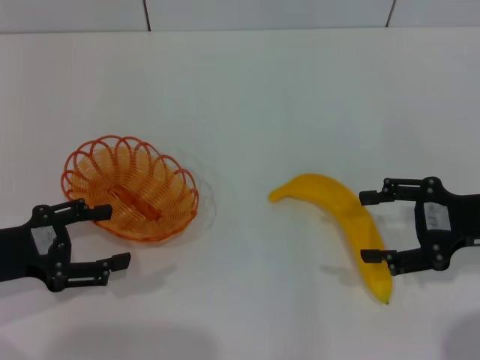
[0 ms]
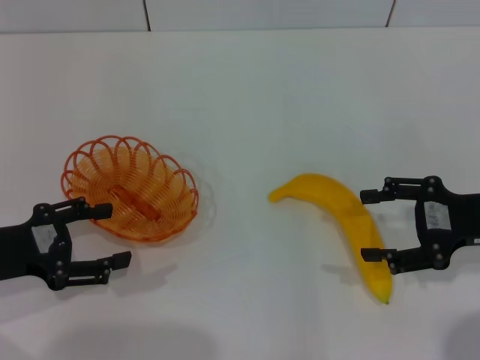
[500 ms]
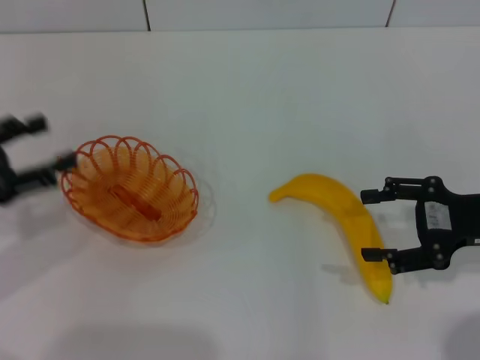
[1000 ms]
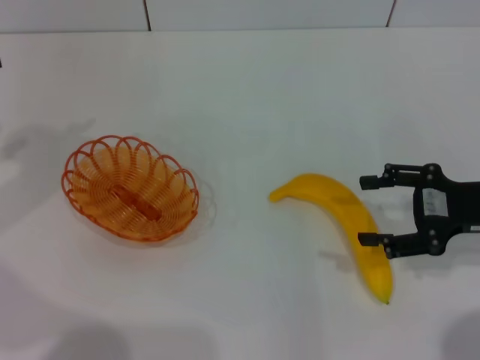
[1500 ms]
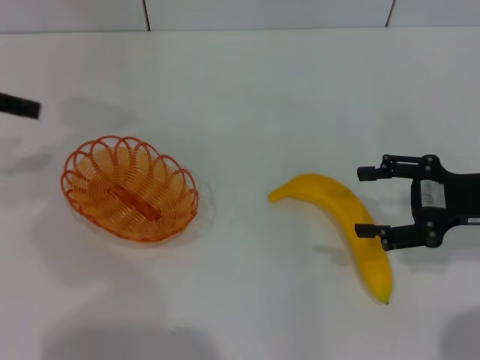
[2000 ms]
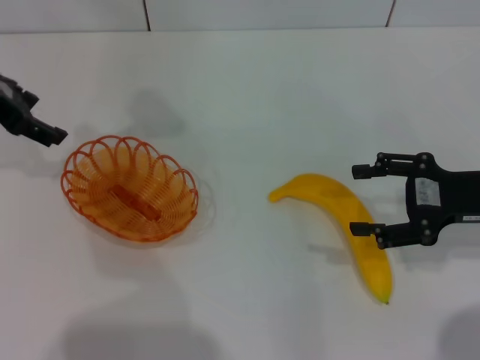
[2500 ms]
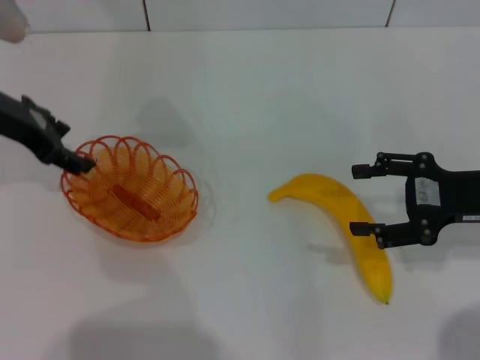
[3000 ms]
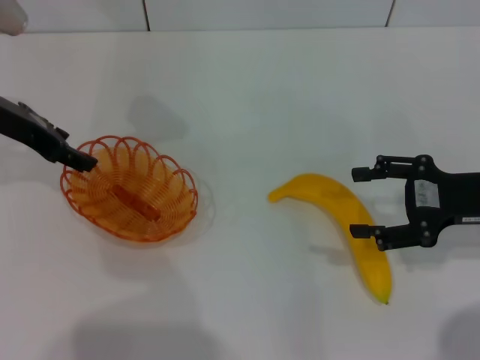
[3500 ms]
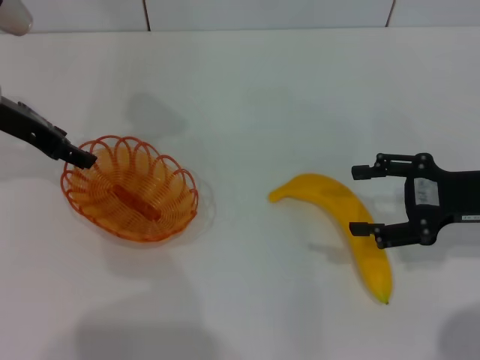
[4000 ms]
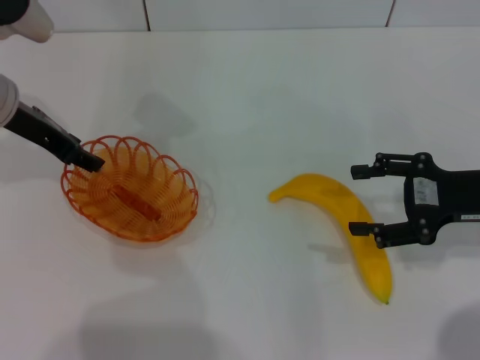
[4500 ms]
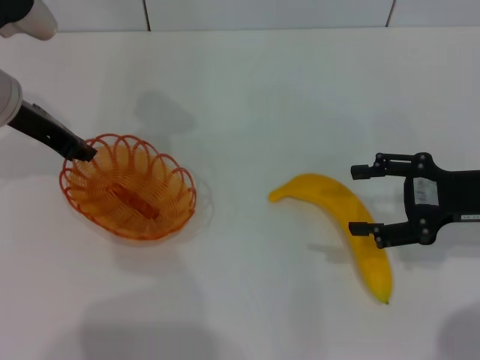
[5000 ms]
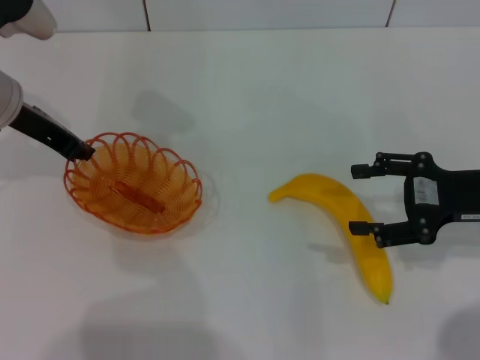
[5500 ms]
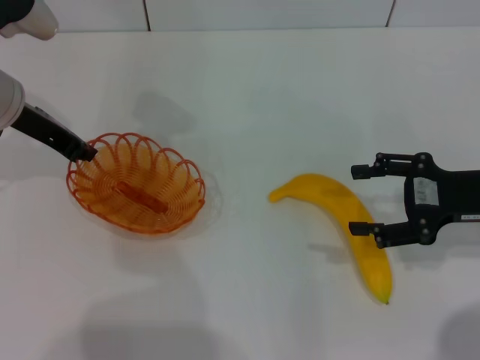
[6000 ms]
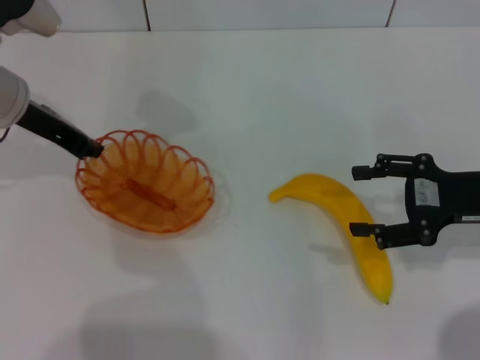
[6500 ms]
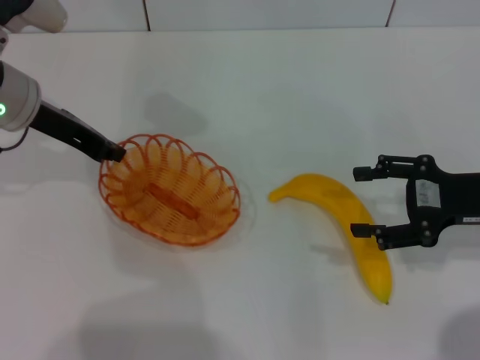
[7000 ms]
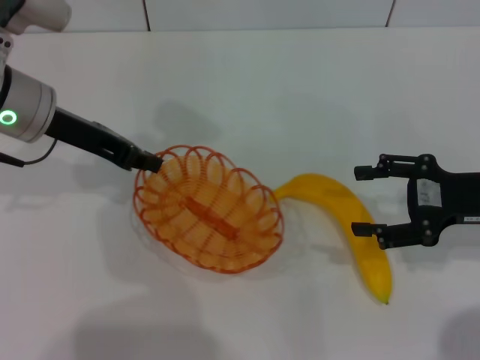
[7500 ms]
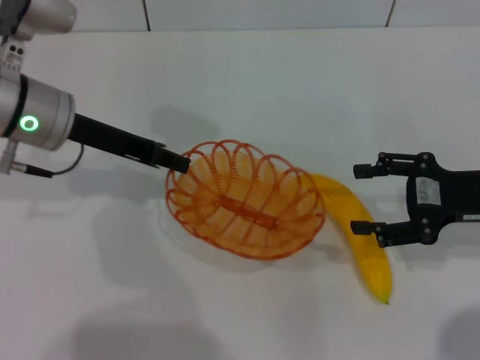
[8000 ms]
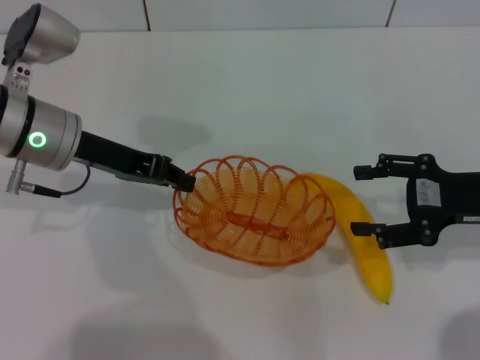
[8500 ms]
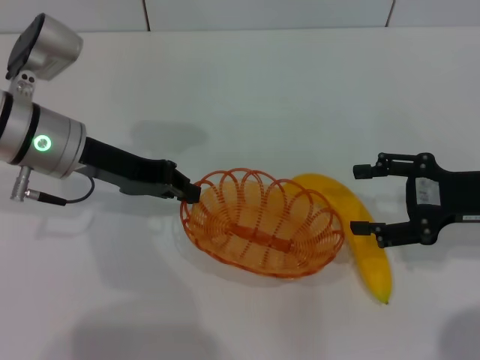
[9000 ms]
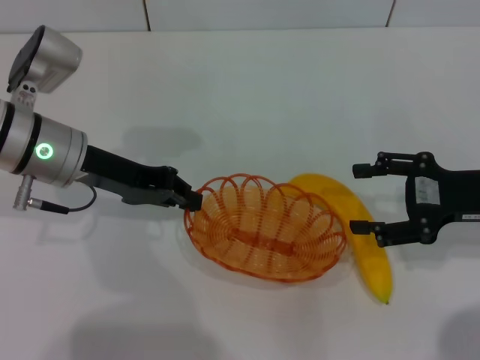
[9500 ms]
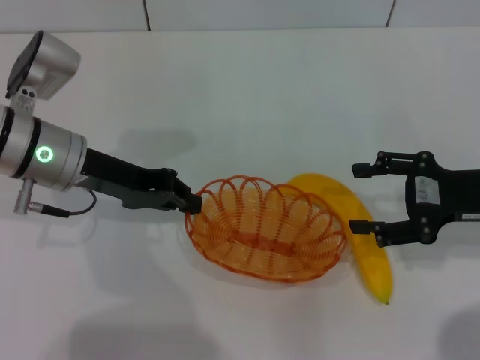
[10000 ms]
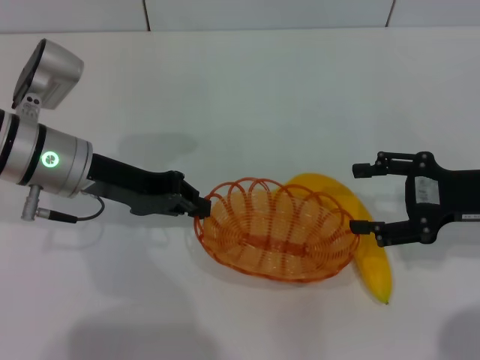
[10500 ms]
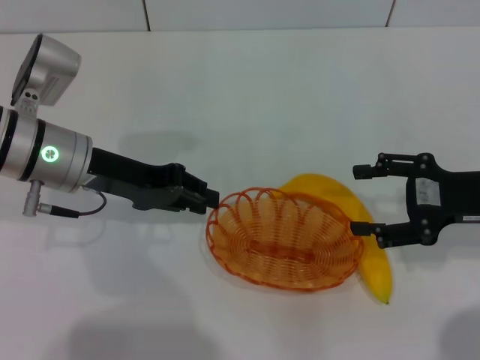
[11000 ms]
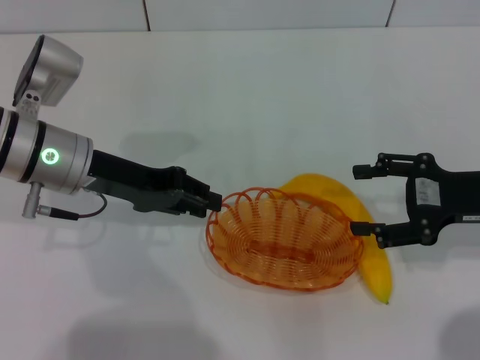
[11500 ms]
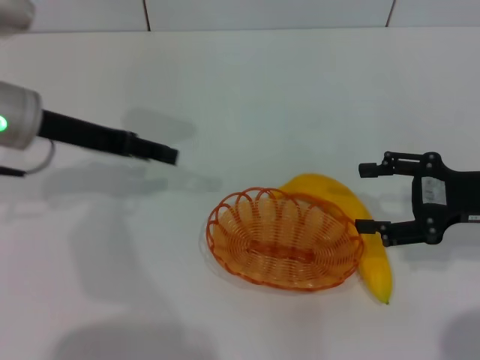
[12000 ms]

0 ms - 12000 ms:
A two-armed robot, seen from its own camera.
Step, 0 ms - 7000 ms: Pick up the basket with the left gripper.
Step, 7500 ms - 11500 ms: Place the basket in the center of view with the left gripper.
0 ms - 2000 ms: The left gripper travels upward and forward by approximately 20 cm.
2000 ms - 4000 ms: The left gripper shifts about 10 cm to the right and downward.
4000 ms - 6000 ms: The left gripper closes up.
10000 ms - 12000 ms: The left gripper opens.

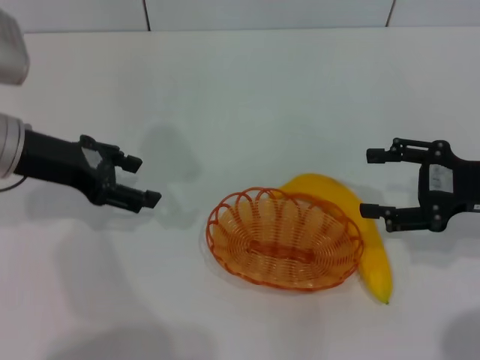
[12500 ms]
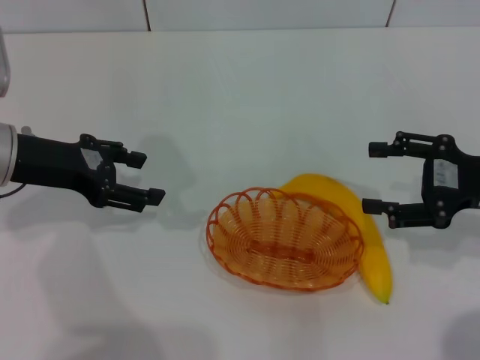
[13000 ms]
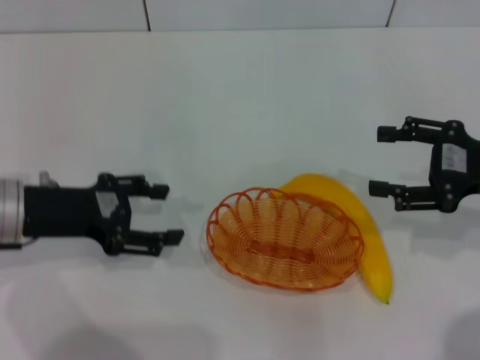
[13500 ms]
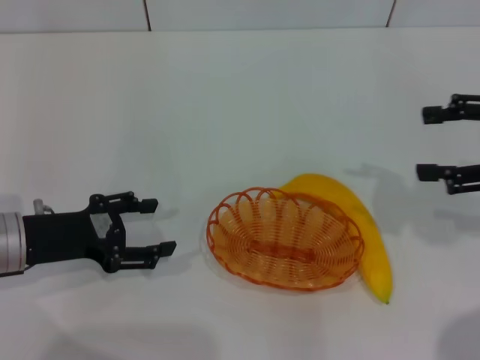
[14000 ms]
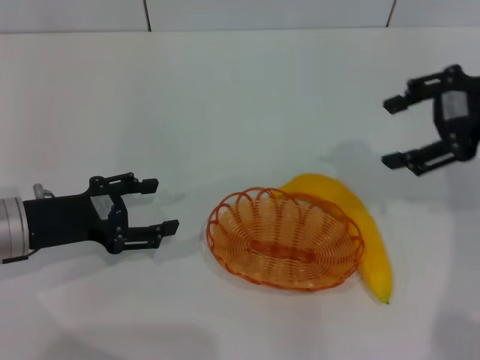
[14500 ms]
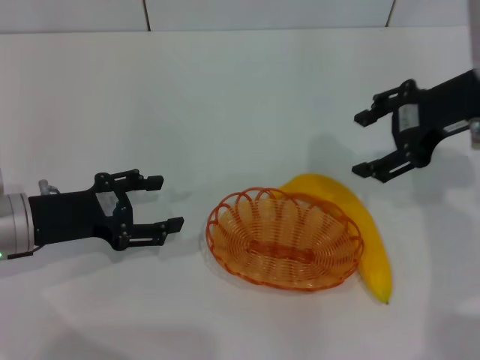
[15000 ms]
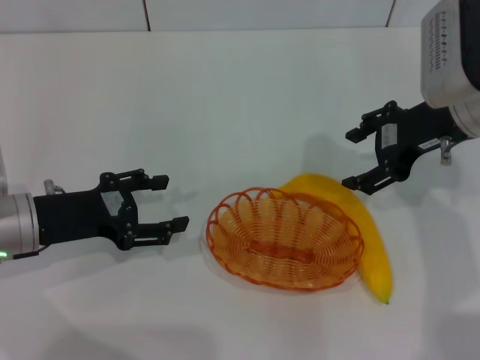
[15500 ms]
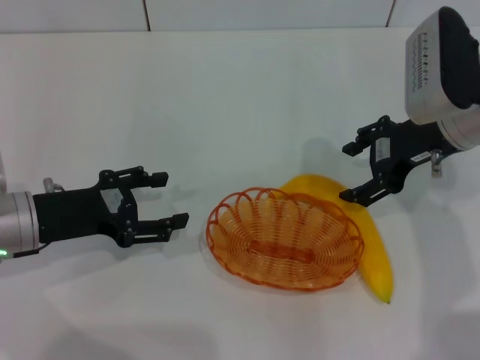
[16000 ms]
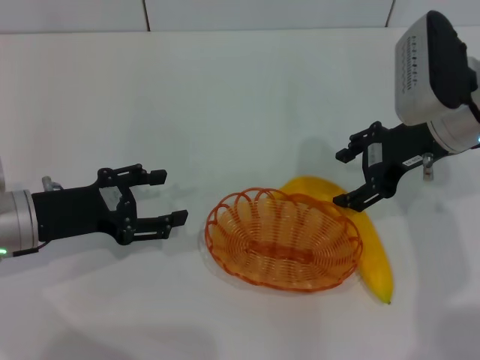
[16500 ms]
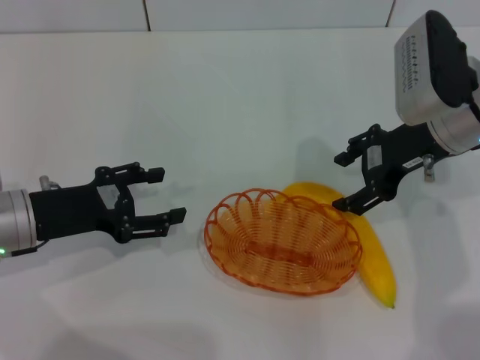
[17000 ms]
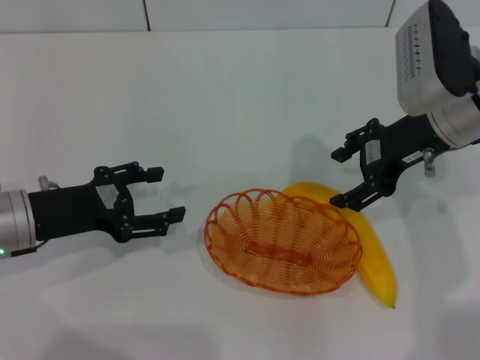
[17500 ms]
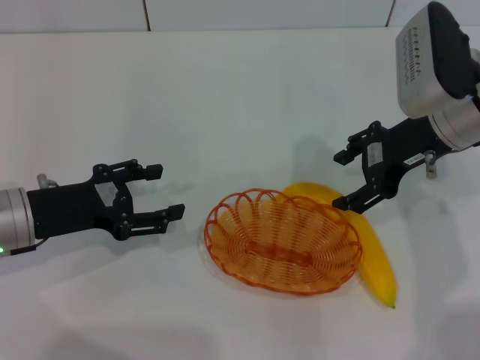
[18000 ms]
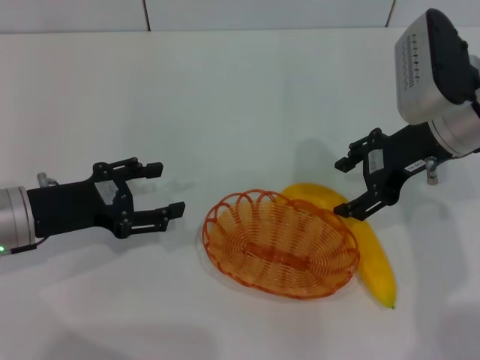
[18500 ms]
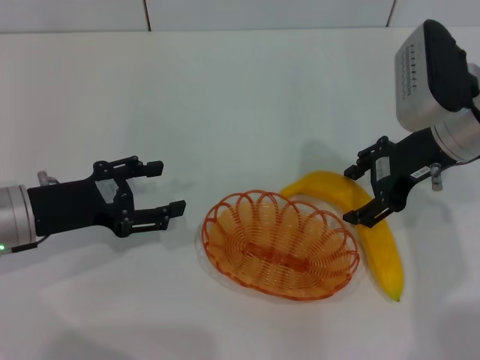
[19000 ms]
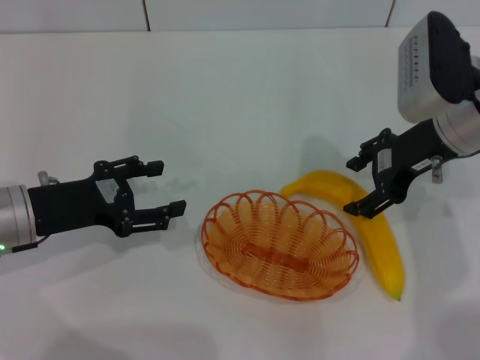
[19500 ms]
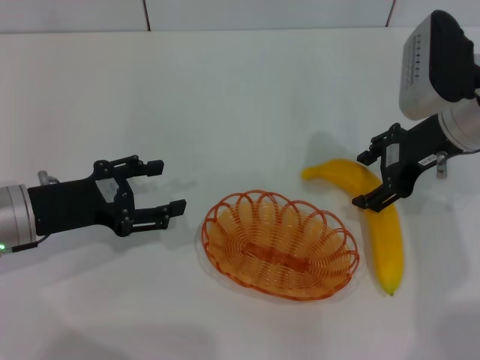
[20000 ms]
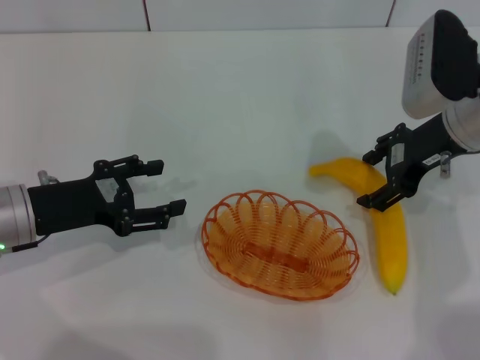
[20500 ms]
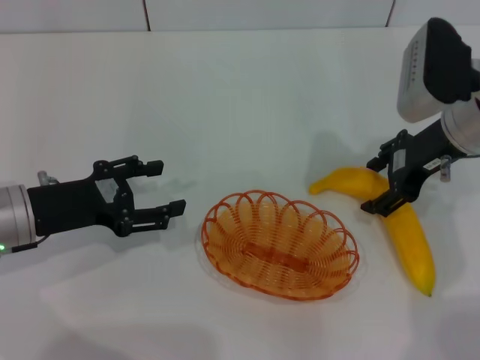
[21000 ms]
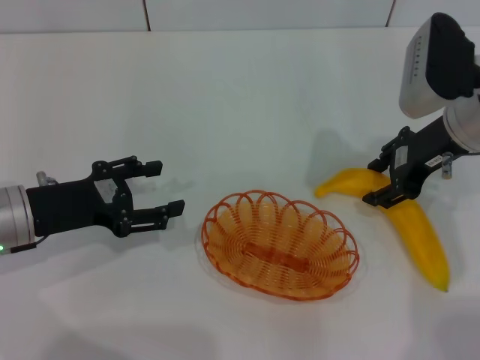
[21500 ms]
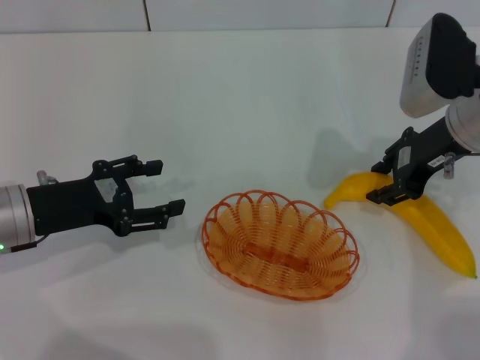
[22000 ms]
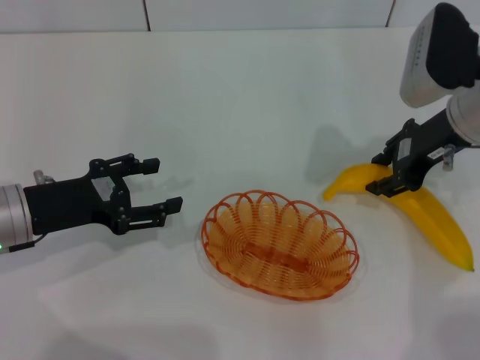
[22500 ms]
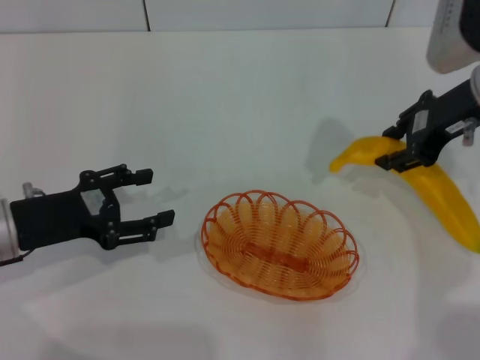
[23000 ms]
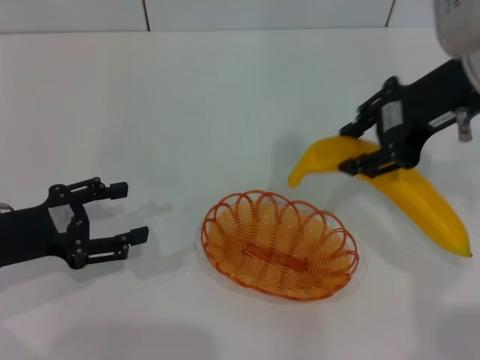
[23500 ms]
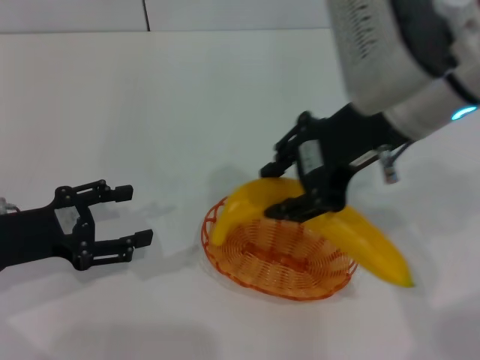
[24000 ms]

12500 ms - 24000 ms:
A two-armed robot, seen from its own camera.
Step, 12500 ms - 22500 ms: Pick up the banana with the right gripper.
12500 ms - 14500 ms: The left gripper shifts approximately 10 cm downward and backward. The right gripper goes about 15 cm upward.
14500 ms - 16500 ms: The right gripper shifts approximately 10 cm downward and to the left.
16500 ms - 18500 ms: Both grippers stay put.
18500 ms - 20000 ms: The grippers make only small movements.
20000 ms - 22000 ms: The right gripper closes up.
22000 ms - 24000 ms: The right gripper is displaced to the left, upward and backward by some 15 cm.

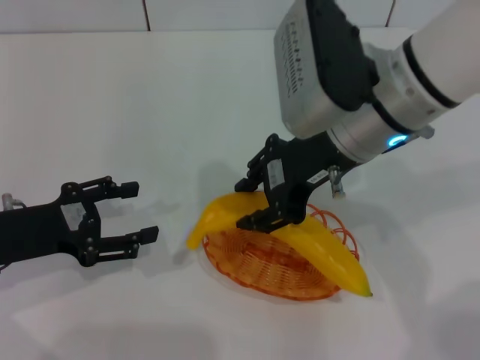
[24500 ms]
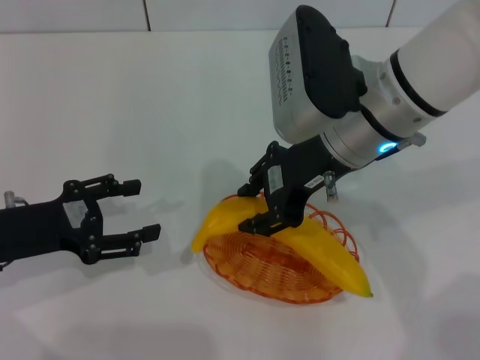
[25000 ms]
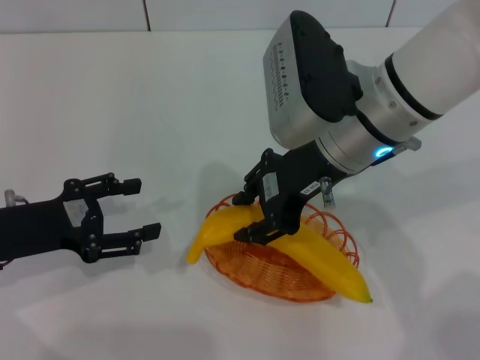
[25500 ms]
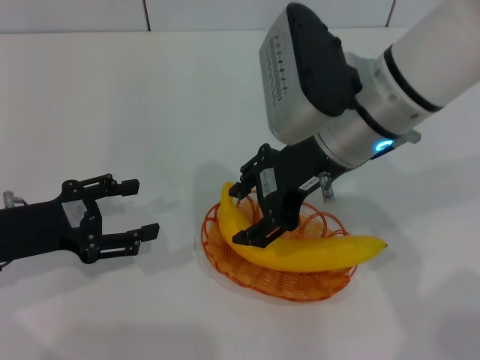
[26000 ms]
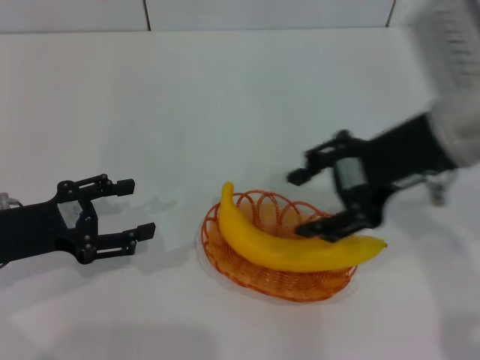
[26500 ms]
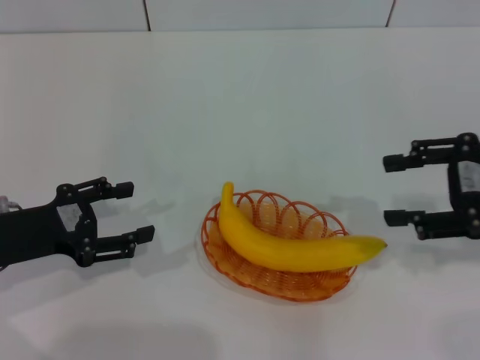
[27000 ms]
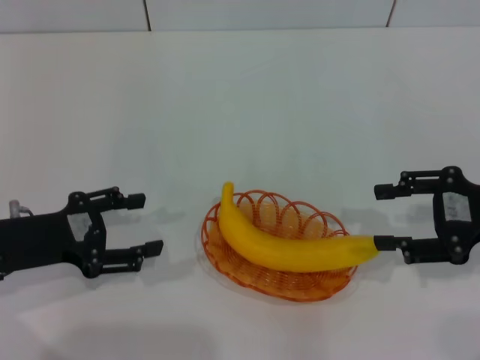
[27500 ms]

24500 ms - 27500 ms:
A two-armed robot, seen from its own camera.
24500 ms - 26000 ms: The right gripper opens up.
26000 ms - 27500 ms: The right gripper travels to the right by about 20 cm.
